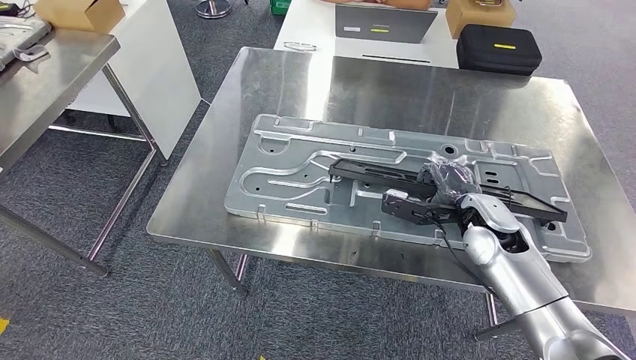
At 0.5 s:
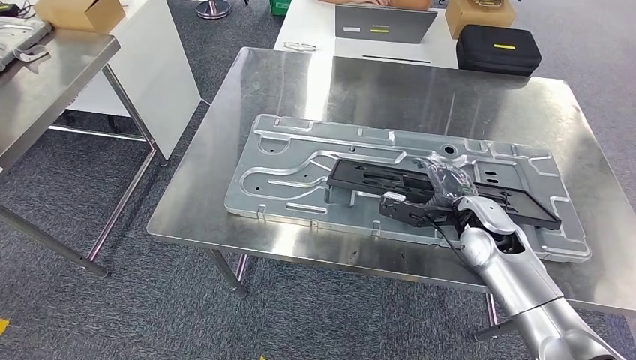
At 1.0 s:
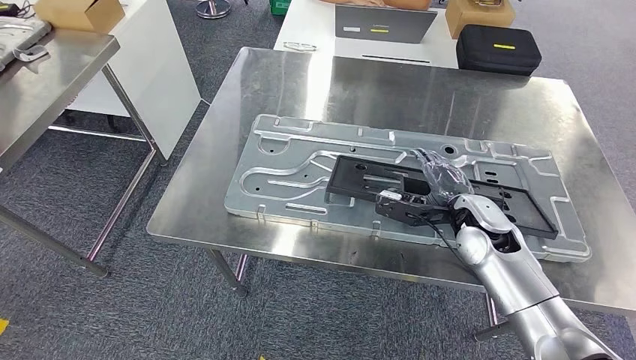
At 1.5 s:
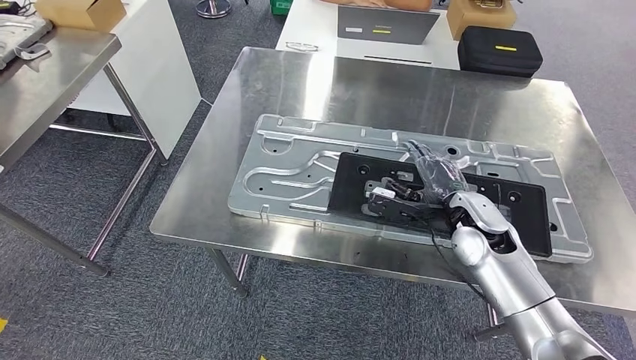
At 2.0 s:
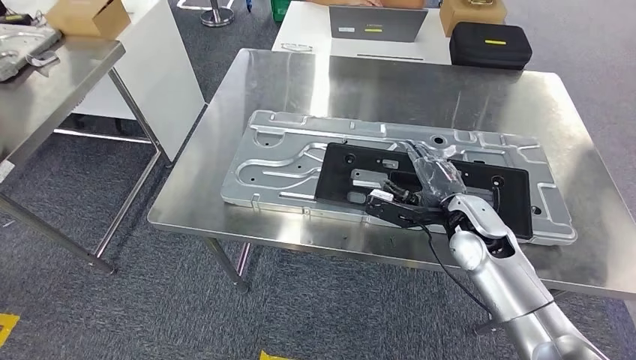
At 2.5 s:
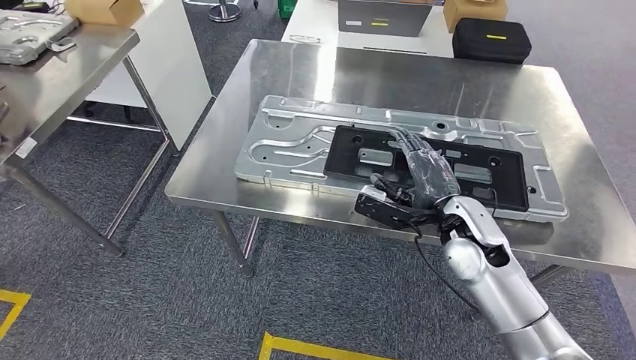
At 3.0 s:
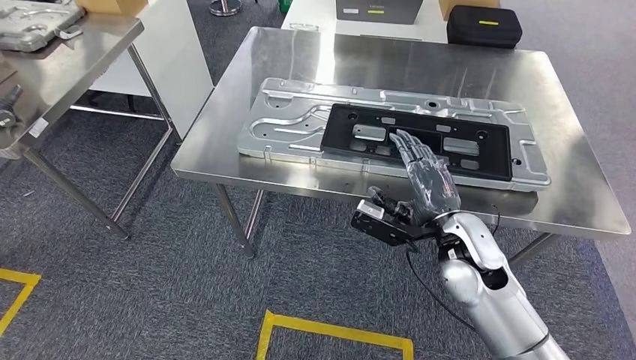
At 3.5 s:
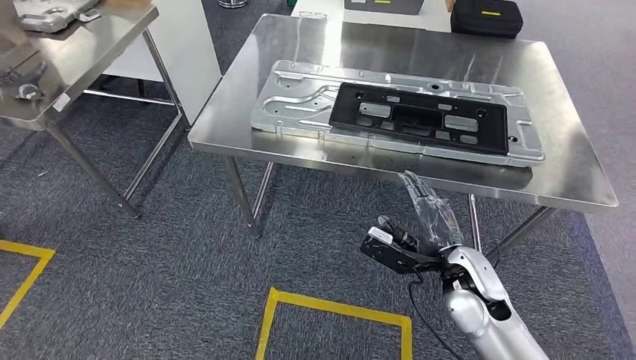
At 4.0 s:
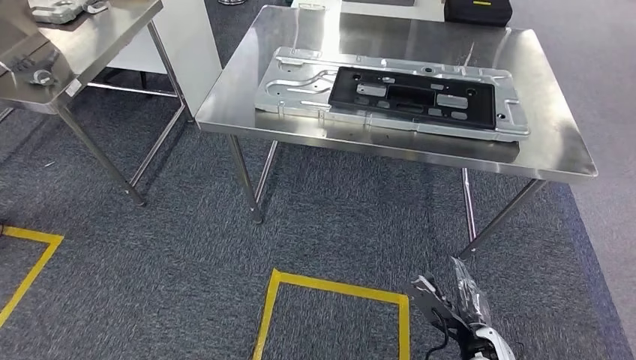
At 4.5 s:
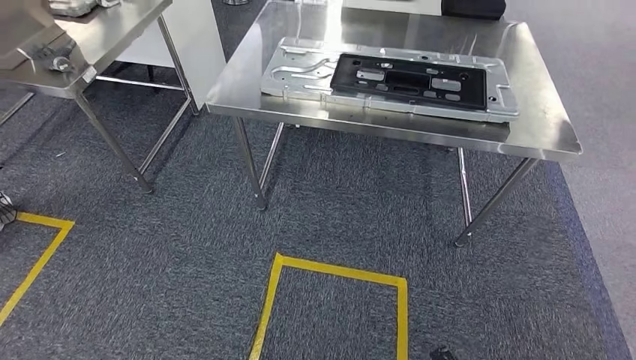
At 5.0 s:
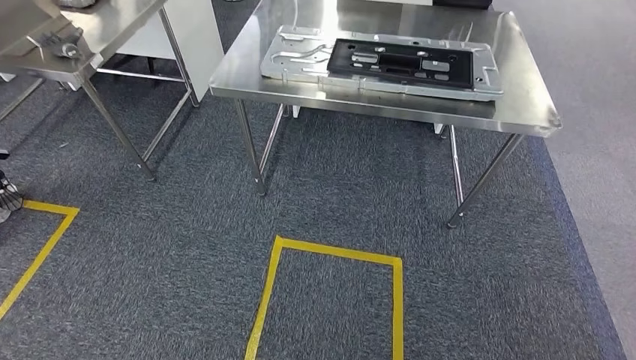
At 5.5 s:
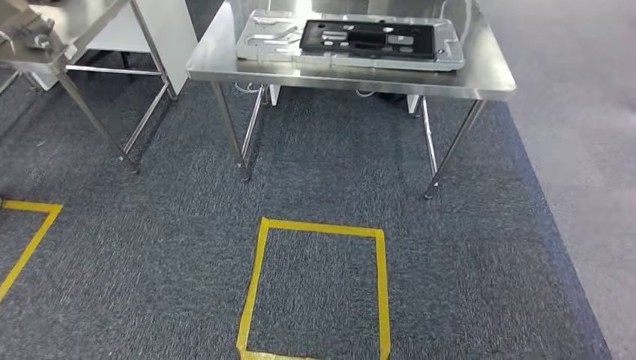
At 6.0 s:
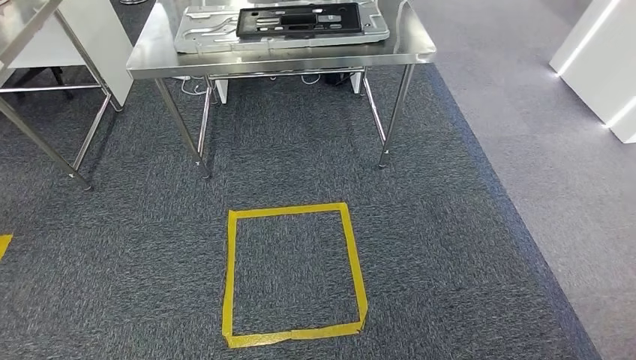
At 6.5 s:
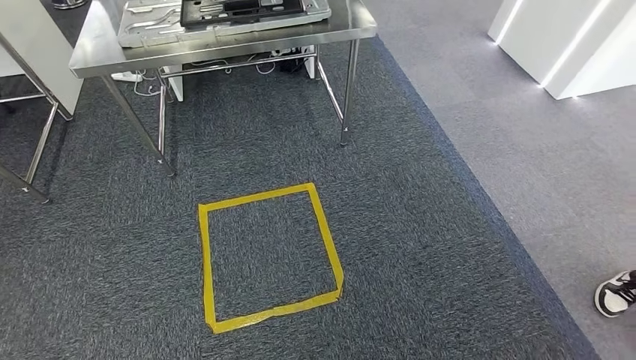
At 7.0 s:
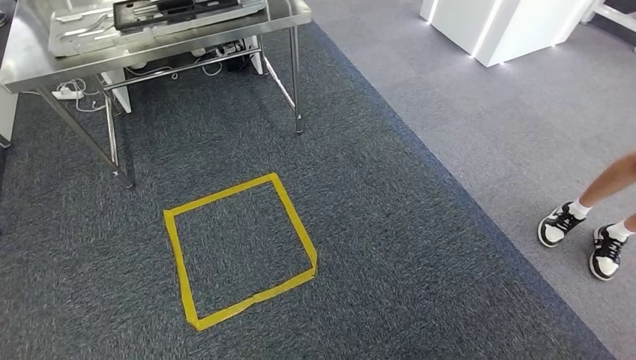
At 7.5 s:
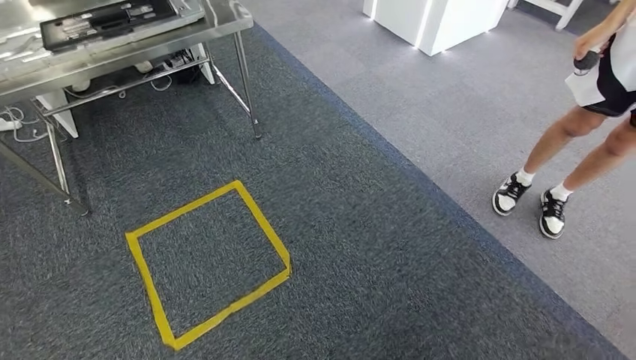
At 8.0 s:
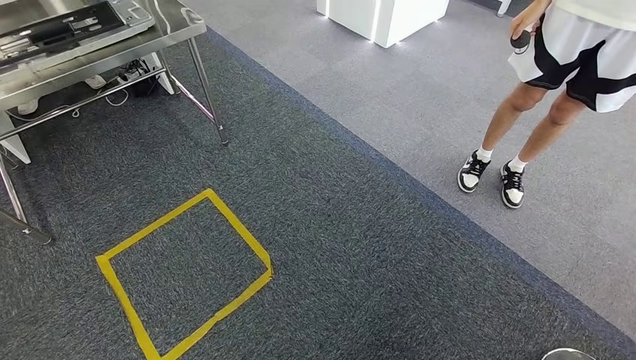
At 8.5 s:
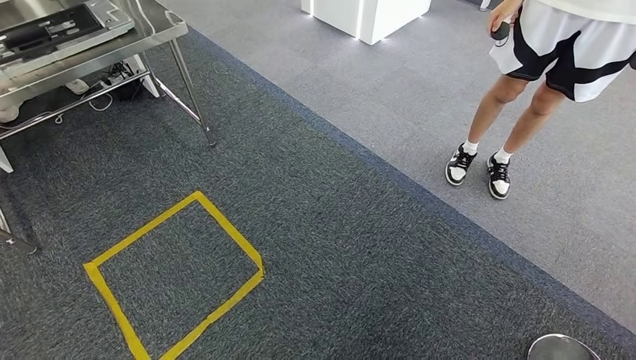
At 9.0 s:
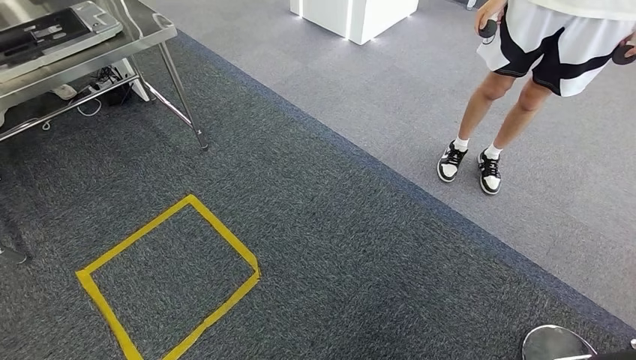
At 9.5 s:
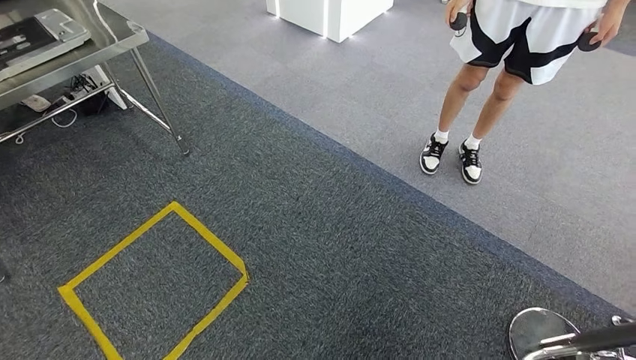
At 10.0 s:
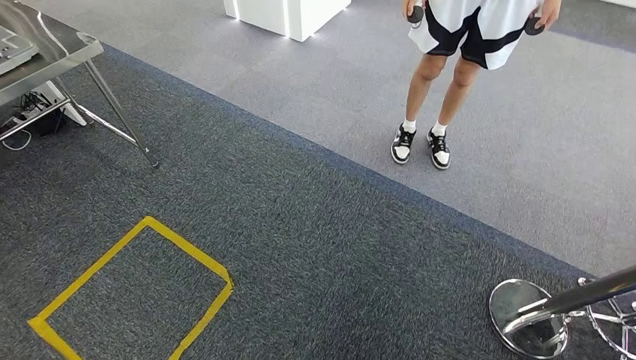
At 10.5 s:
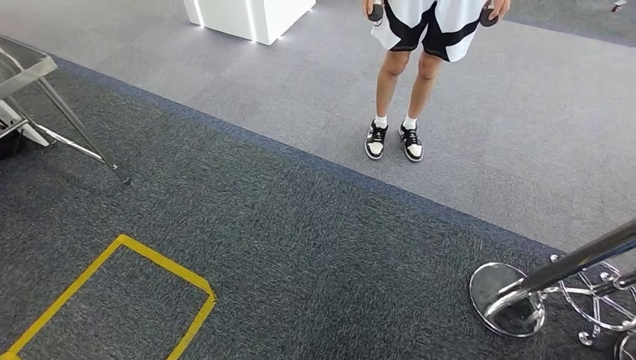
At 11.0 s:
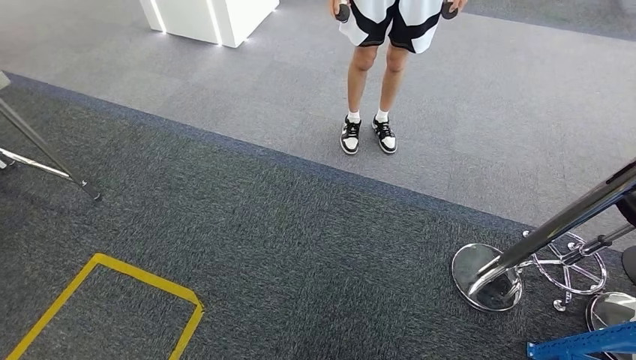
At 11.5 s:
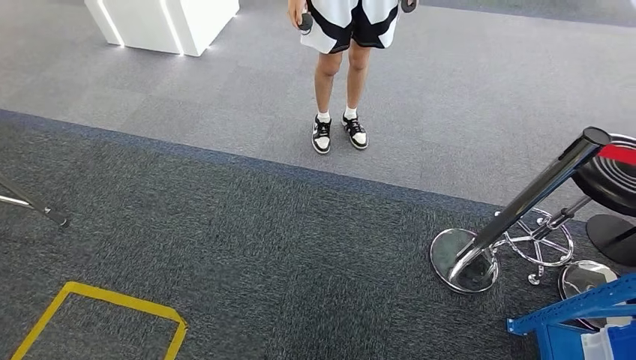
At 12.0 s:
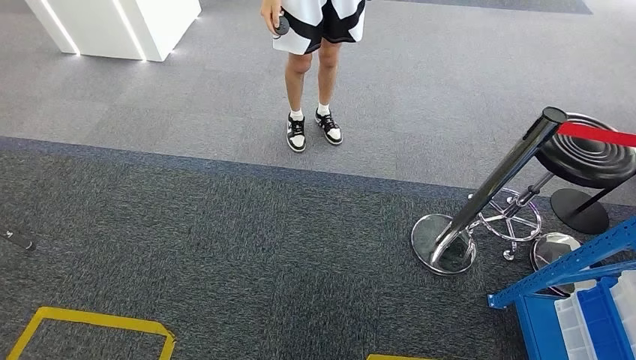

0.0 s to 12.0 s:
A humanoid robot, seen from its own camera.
Step, 0.0 to 5.5 s: Insert the large material into the corresponding slot on the workbench.

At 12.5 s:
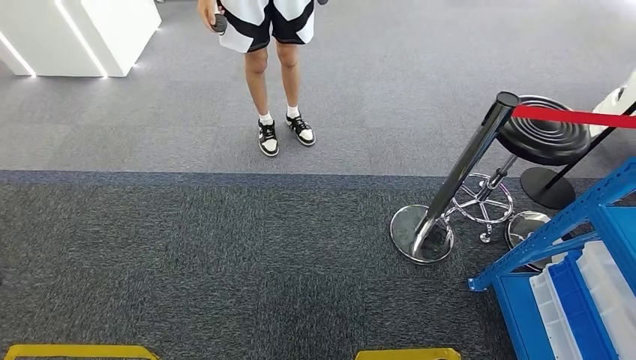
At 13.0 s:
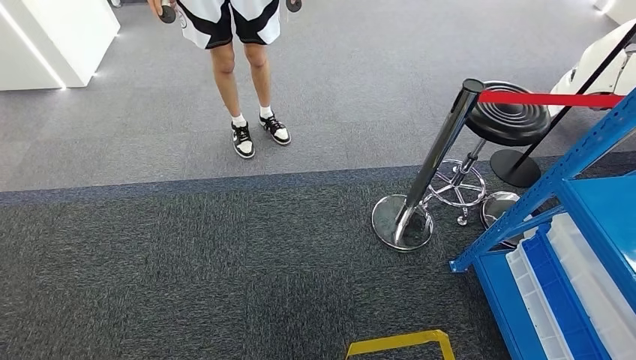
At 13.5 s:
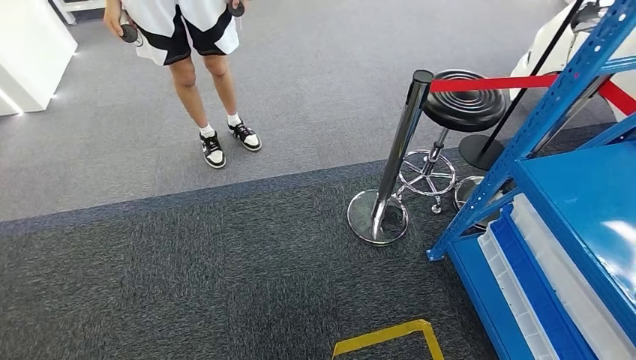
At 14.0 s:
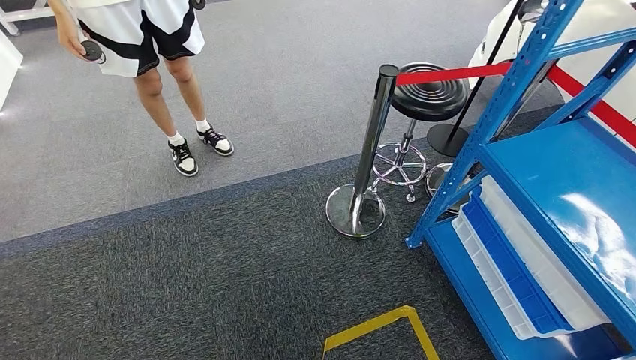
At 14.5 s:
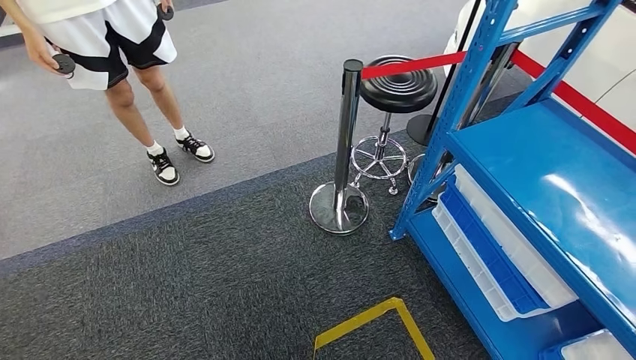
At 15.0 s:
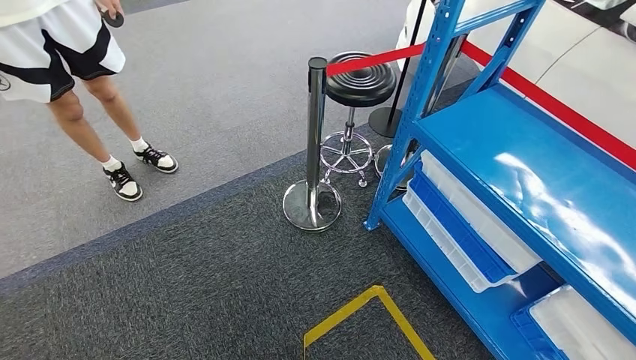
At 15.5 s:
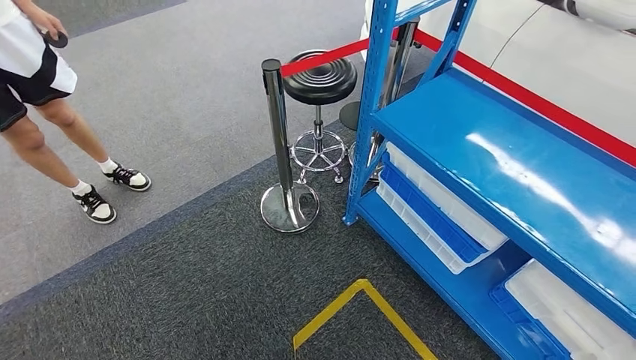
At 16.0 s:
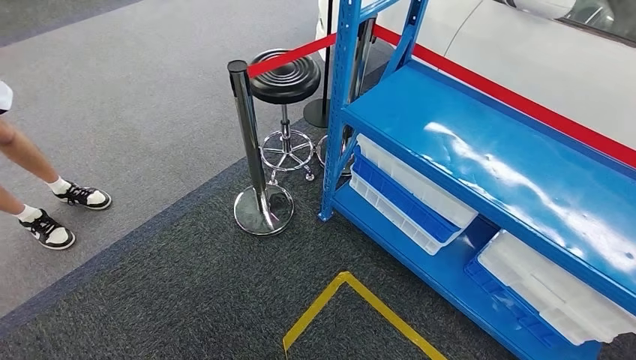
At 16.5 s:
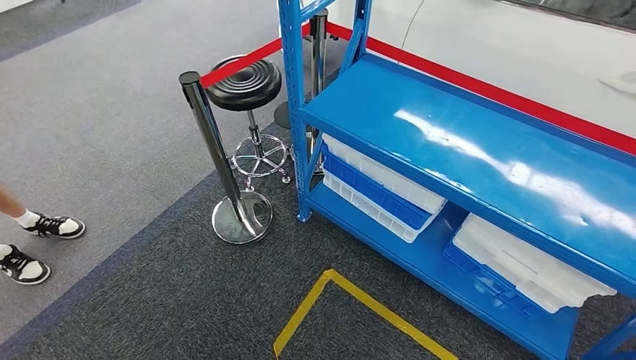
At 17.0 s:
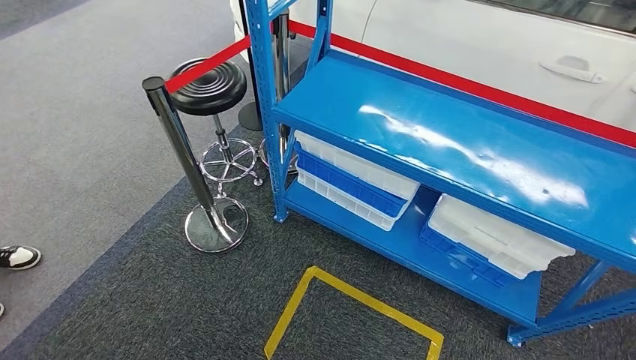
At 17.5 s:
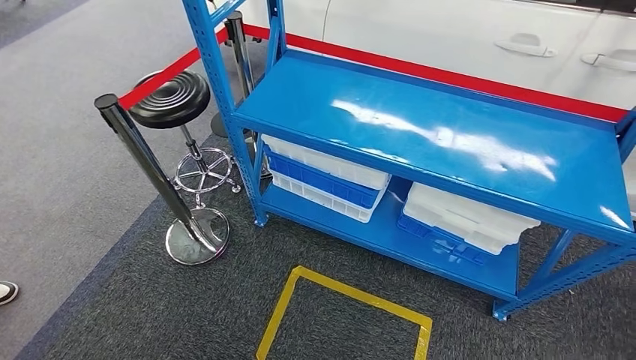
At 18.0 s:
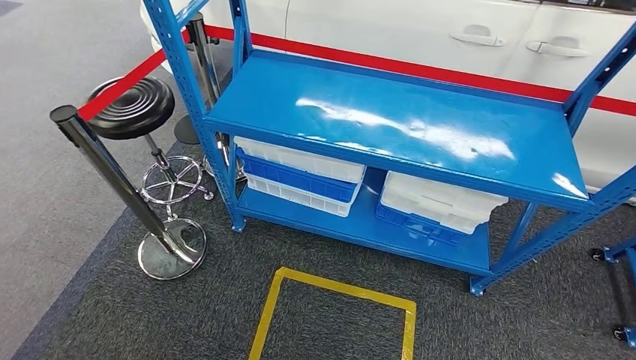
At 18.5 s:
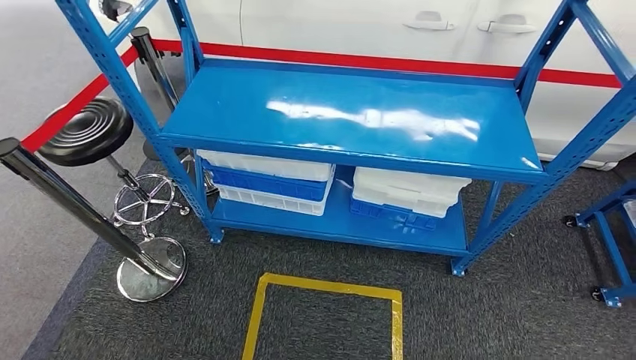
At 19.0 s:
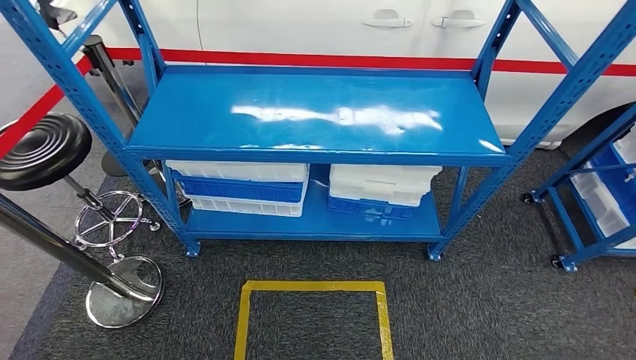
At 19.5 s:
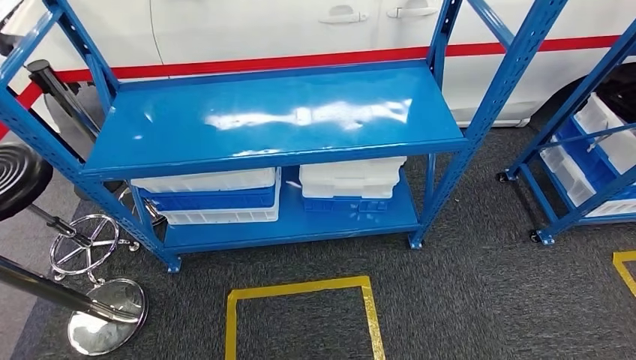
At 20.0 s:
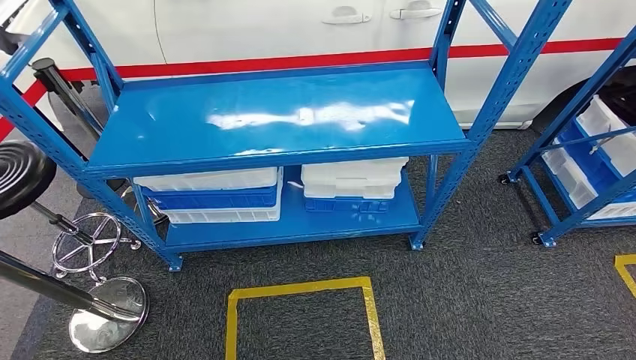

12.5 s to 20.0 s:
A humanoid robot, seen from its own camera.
Step, 12.5 to 19.5 s: Return to the initial position at the shelf.
